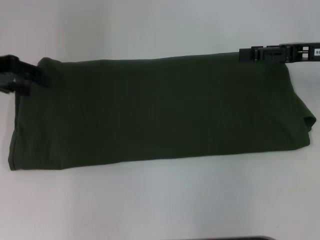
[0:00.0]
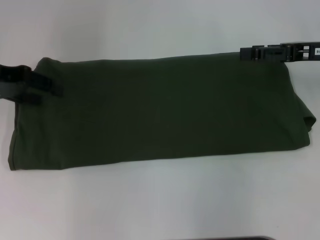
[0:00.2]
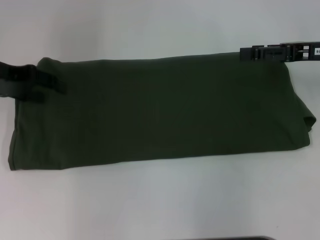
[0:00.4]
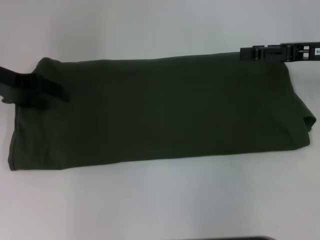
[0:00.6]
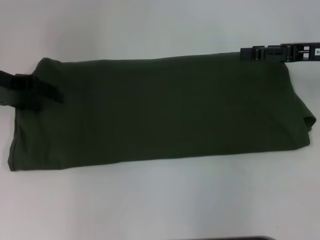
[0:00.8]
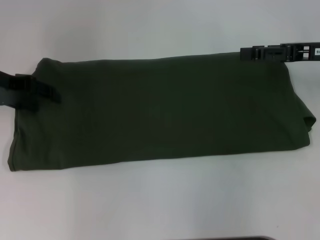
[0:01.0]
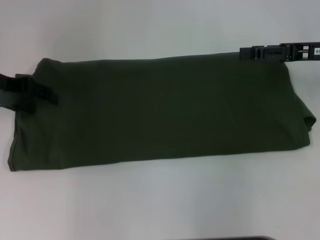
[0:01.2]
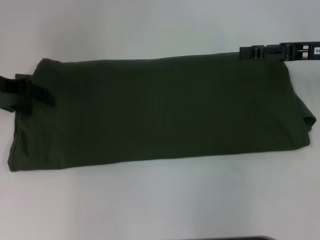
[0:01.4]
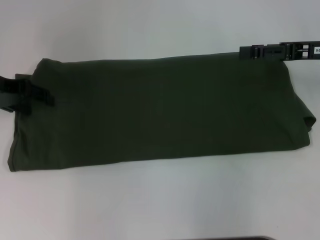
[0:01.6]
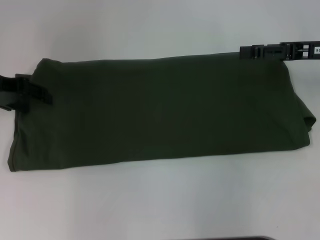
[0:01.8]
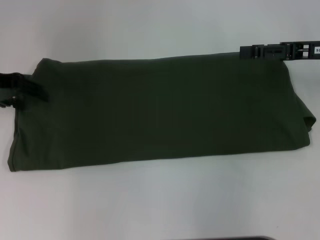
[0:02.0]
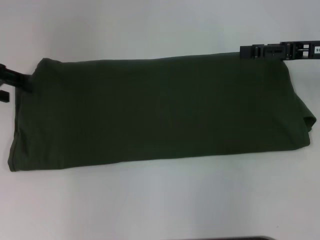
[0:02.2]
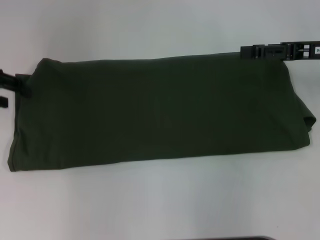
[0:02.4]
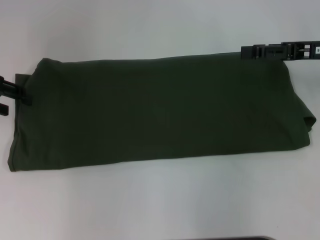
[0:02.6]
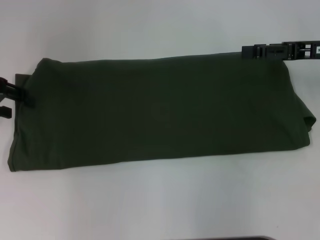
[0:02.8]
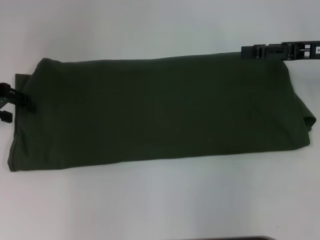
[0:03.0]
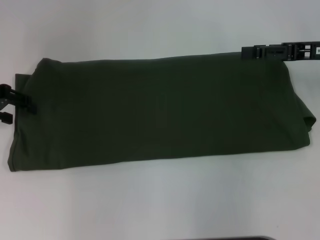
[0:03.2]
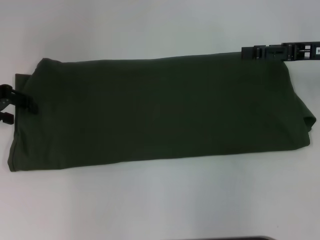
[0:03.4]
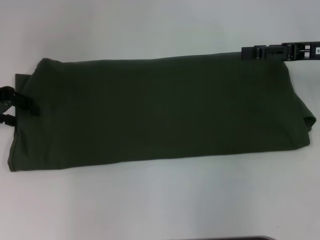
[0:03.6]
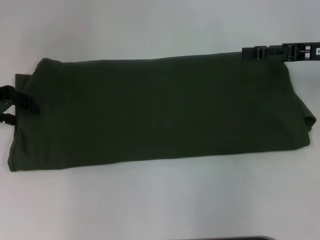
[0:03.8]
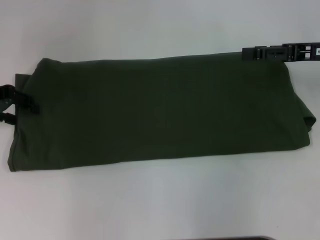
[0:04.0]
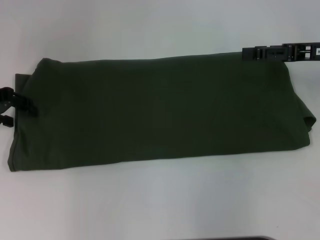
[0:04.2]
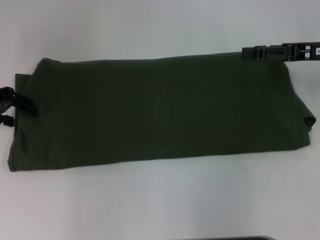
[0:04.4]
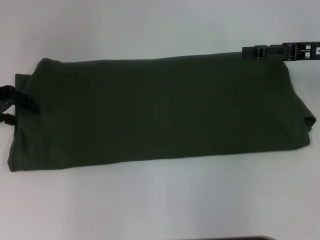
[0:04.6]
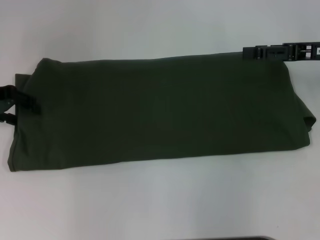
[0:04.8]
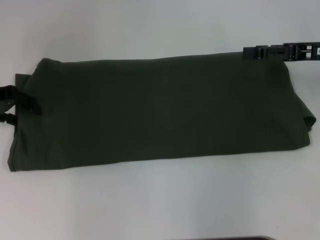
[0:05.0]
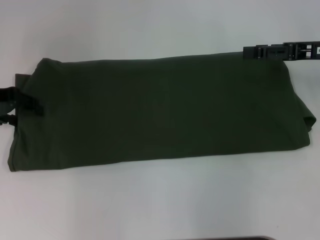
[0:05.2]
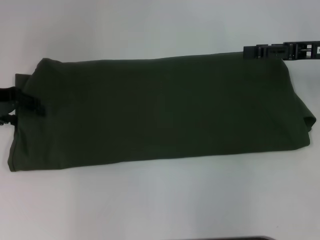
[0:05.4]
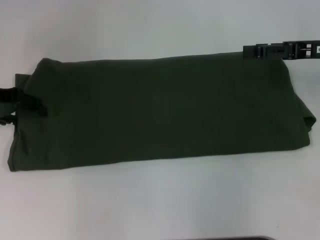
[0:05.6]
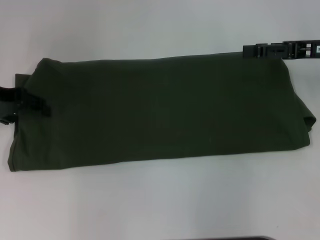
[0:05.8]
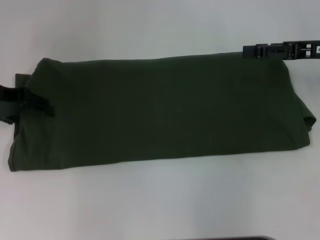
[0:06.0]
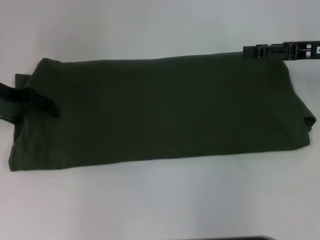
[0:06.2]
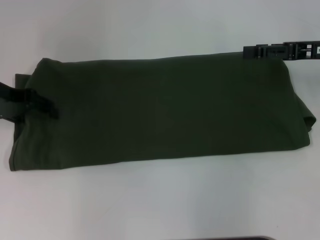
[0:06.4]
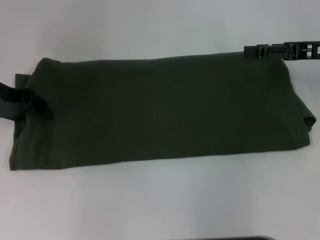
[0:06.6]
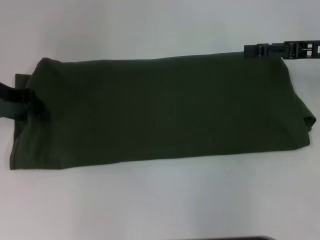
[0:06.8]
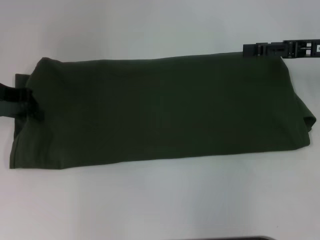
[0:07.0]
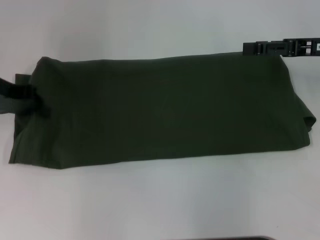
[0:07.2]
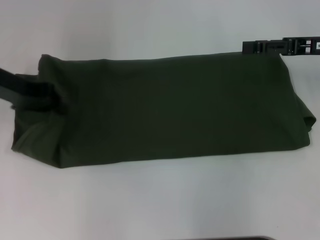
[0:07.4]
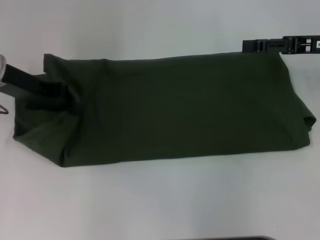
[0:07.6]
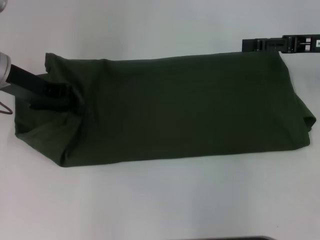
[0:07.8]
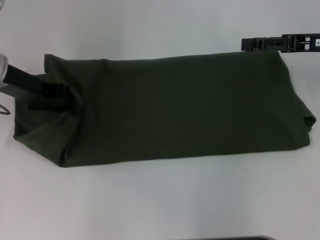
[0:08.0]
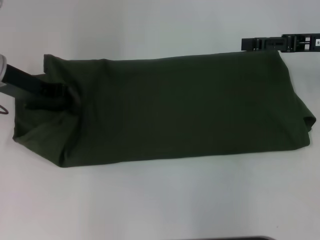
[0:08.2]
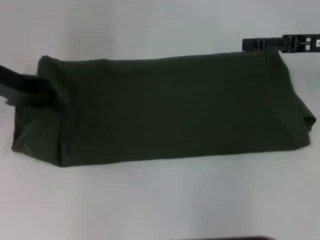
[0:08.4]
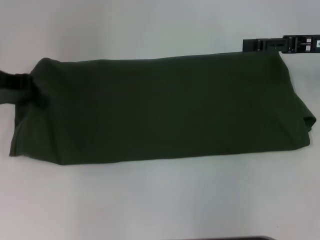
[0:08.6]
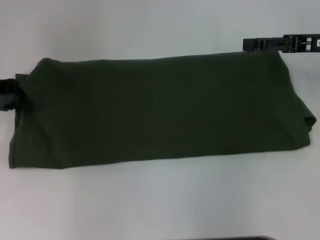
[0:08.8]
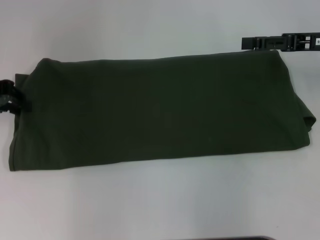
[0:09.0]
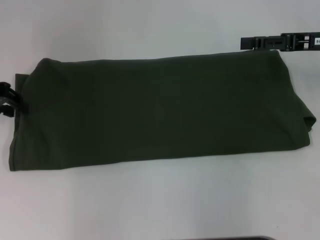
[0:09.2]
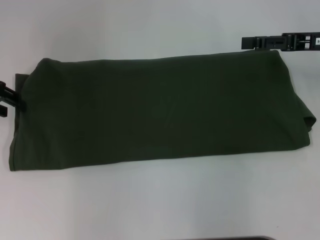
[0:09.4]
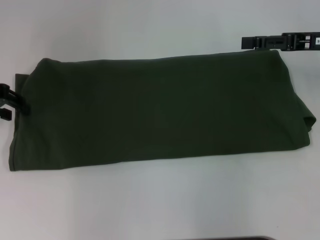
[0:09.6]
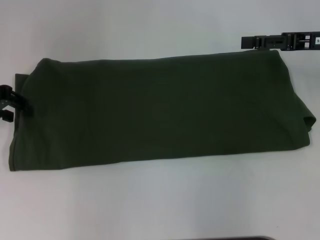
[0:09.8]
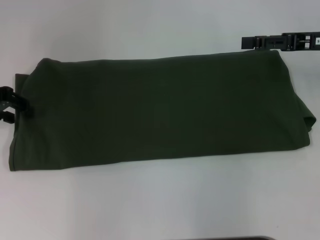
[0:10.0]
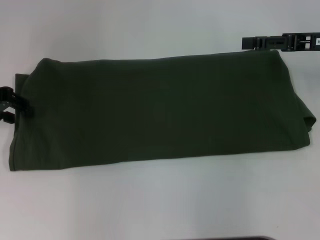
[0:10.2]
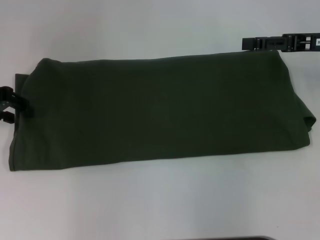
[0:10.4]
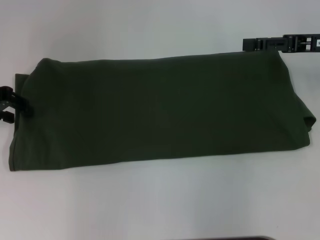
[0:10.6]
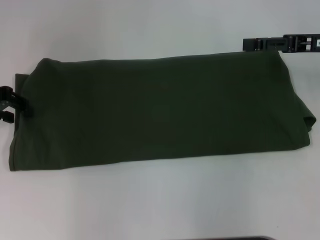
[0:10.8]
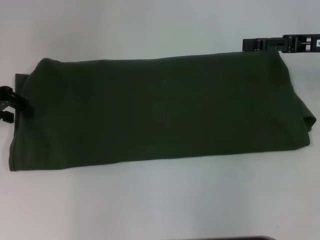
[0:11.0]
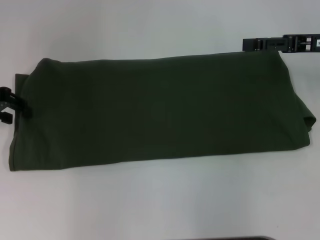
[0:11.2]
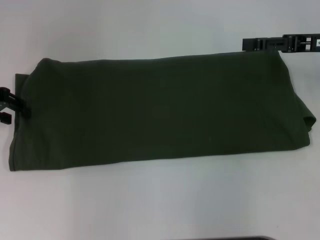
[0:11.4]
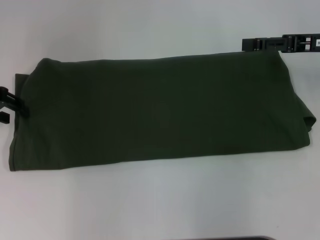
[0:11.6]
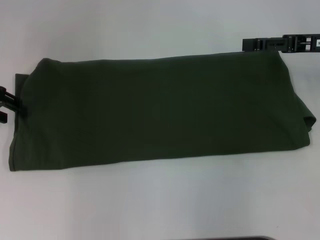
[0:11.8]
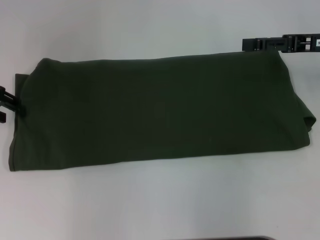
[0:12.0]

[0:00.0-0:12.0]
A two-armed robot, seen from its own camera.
0:00.0 to 0:01.6: The left gripper is displaced downward by some 5 cm.
0:03.0 to 0:06.0: The grippers make only small movements.
0:06.0 to 0:07.6: The left gripper shifts by roughly 5 cm, and closes up.
0:07.6 to 0:09.0: The left gripper is displaced to the left by roughly 5 cm.
0:10.4 to 0:12.0: The two grippers keep their place.

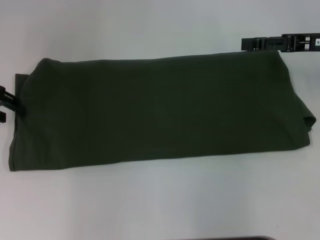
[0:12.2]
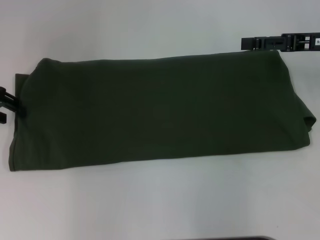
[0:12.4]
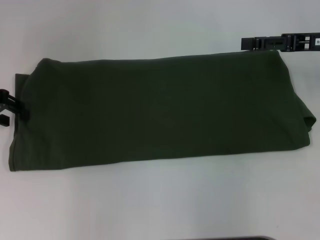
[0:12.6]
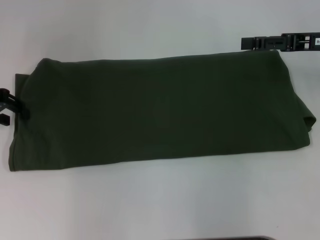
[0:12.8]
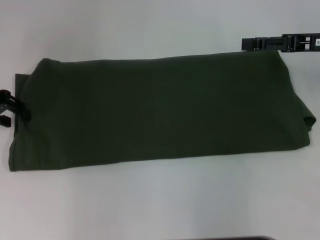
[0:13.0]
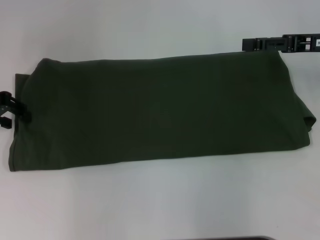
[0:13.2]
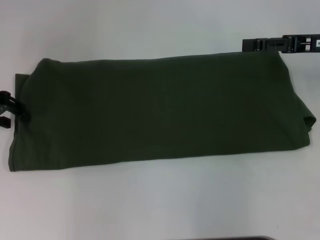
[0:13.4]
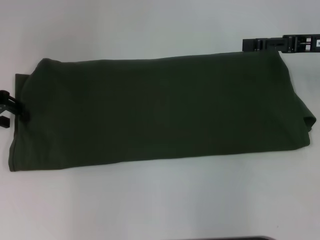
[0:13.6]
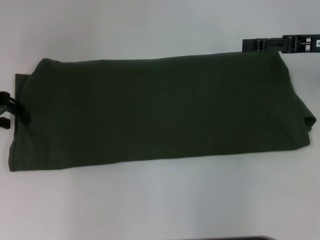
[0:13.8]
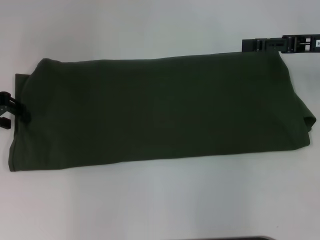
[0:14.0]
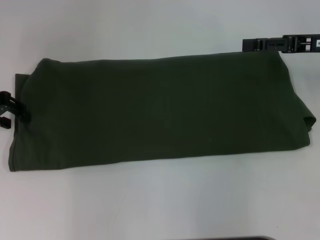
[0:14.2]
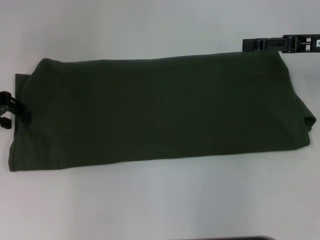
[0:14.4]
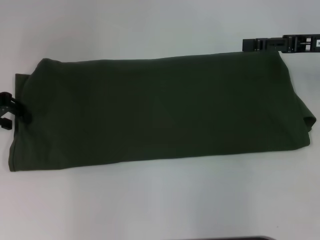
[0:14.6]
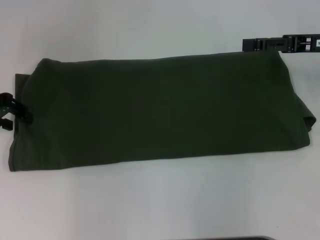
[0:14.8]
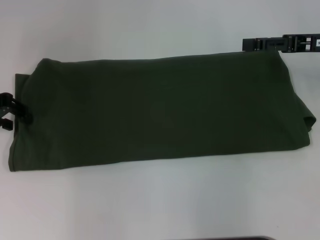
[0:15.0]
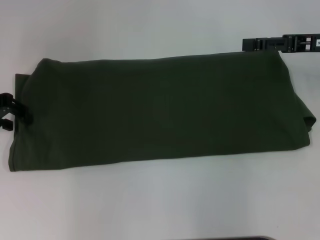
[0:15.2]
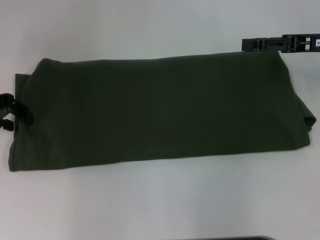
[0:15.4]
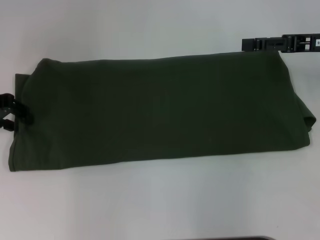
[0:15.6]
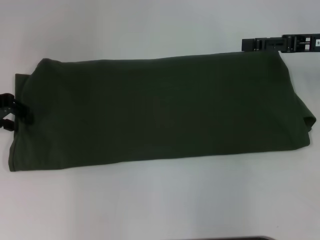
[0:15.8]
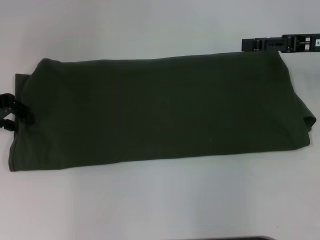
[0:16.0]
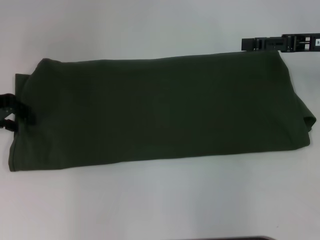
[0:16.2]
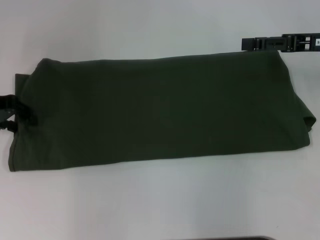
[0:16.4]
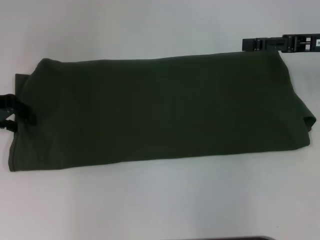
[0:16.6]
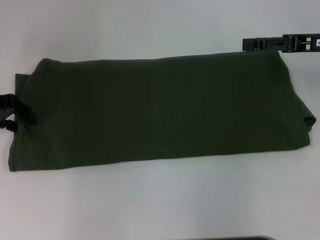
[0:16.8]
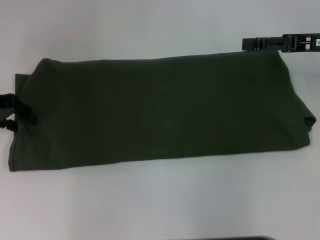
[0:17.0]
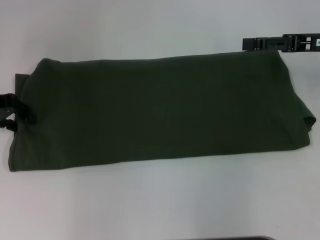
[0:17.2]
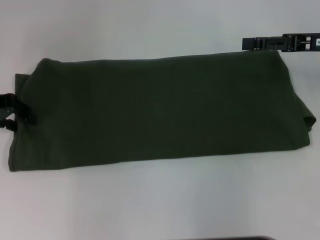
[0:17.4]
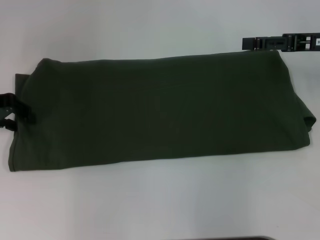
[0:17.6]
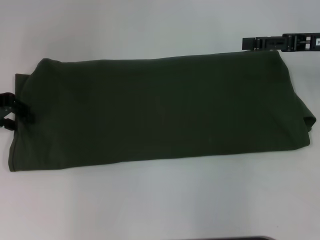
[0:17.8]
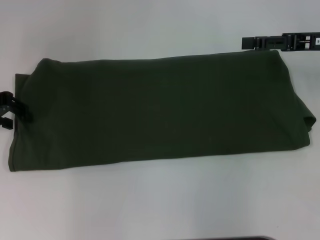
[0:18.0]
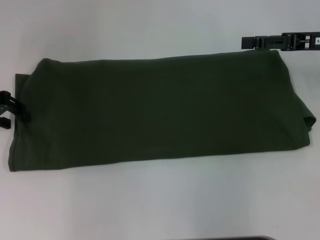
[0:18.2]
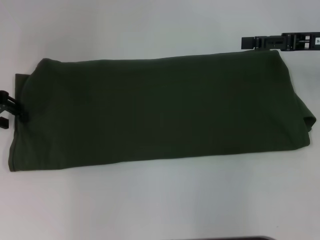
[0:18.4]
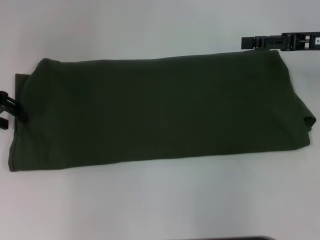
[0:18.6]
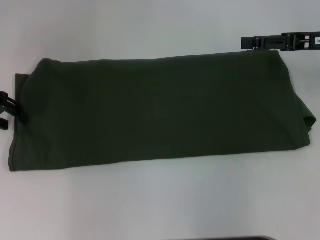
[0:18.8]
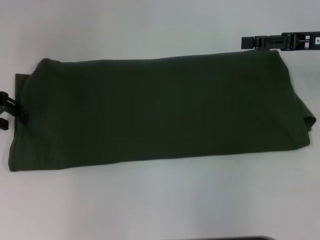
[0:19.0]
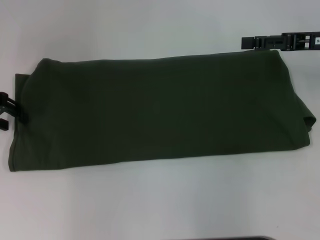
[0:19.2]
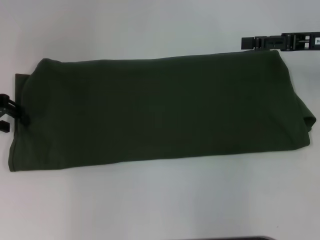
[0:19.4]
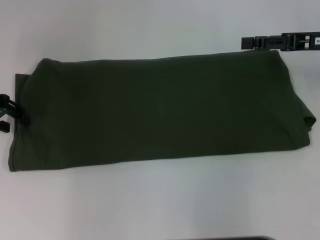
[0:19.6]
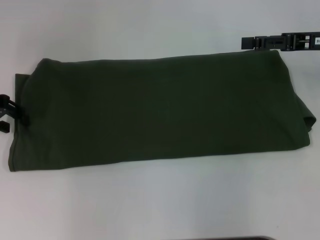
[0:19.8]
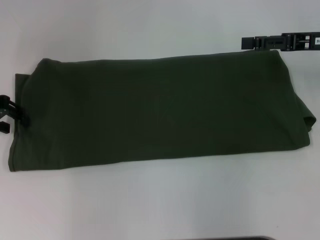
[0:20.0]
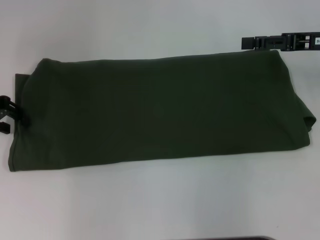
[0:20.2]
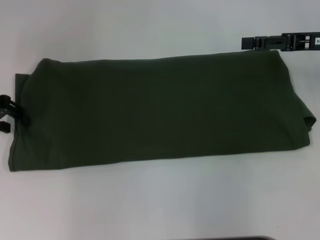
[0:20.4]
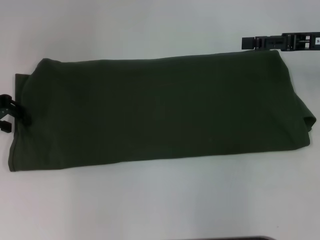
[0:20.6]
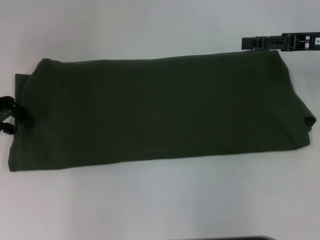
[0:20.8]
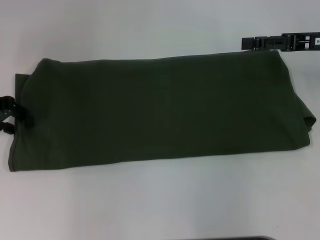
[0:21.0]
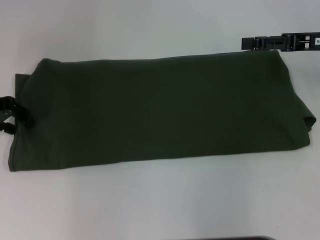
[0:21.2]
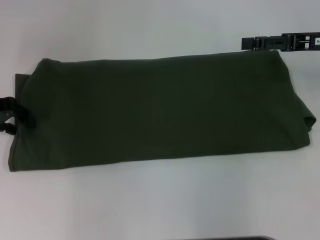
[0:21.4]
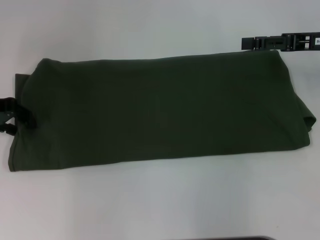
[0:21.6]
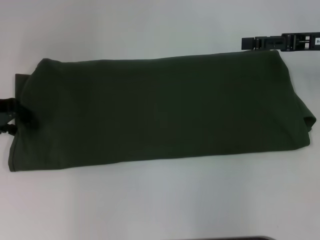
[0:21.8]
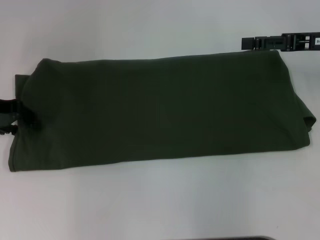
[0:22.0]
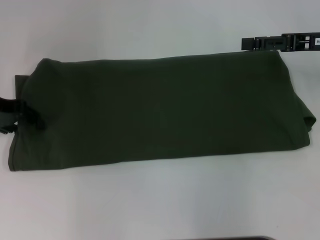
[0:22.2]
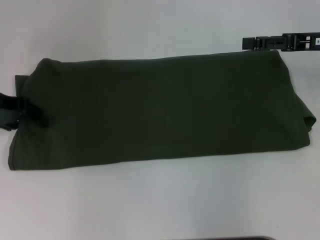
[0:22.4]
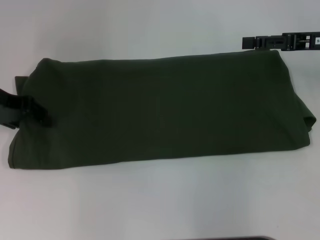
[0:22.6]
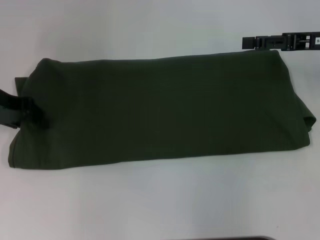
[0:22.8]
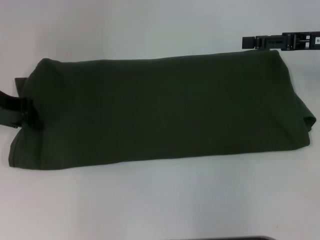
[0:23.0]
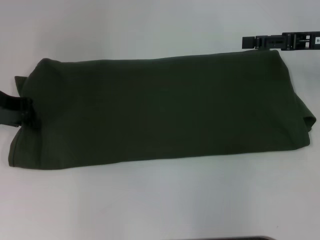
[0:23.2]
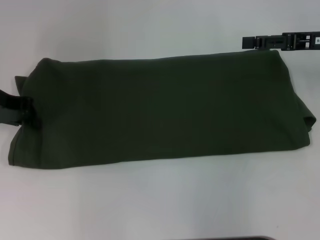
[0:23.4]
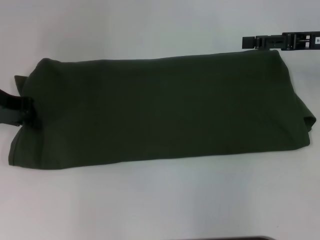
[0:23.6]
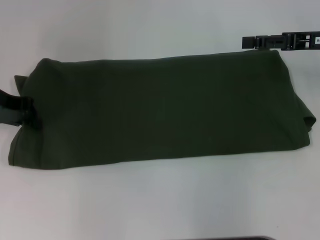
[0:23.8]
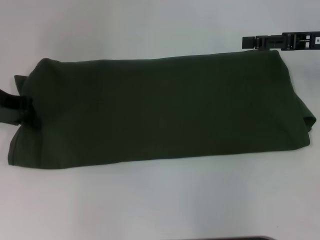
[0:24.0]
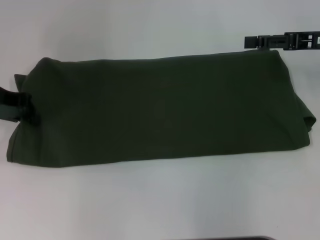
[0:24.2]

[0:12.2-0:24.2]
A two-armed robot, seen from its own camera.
0:12.2 to 0:13.8: The two grippers keep their place.
0:13.8 to 0:21.2: Both grippers stay about where they are.
0:21.2 to 0:22.6: There are only small adjustments of the grippers.
0:22.6 to 0:24.2: The left gripper closes up.
